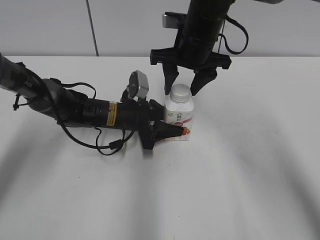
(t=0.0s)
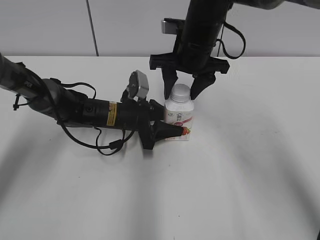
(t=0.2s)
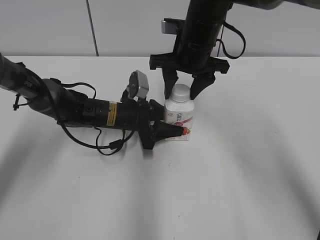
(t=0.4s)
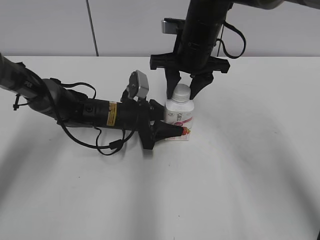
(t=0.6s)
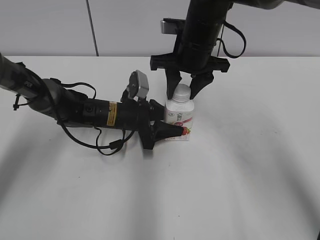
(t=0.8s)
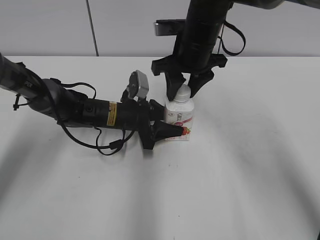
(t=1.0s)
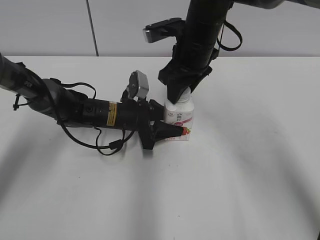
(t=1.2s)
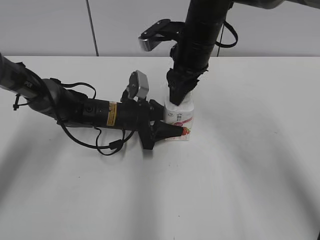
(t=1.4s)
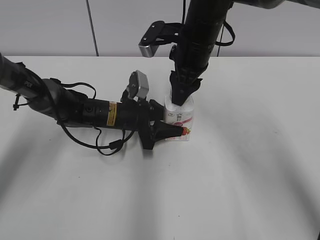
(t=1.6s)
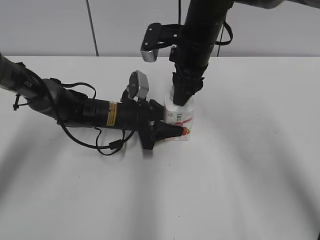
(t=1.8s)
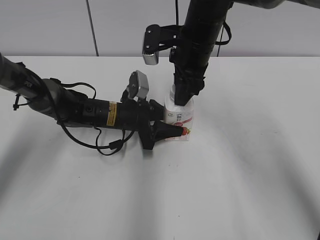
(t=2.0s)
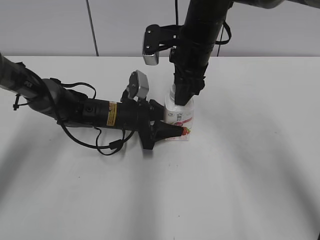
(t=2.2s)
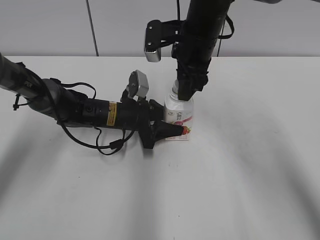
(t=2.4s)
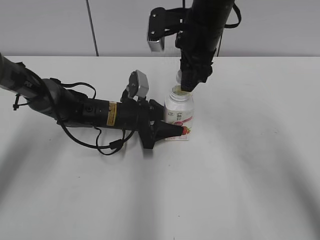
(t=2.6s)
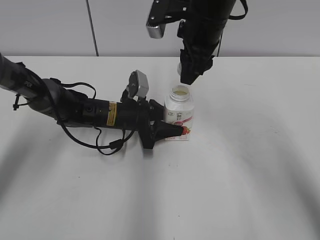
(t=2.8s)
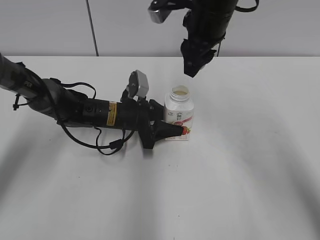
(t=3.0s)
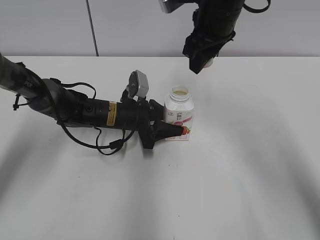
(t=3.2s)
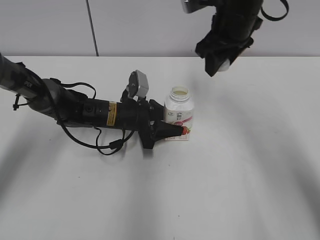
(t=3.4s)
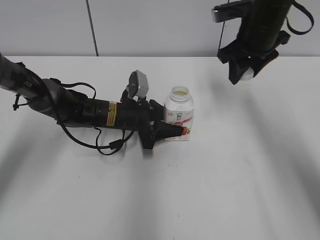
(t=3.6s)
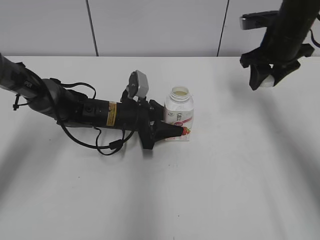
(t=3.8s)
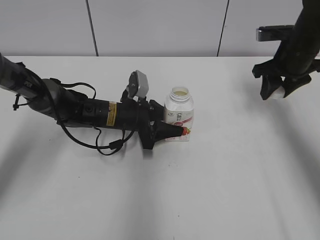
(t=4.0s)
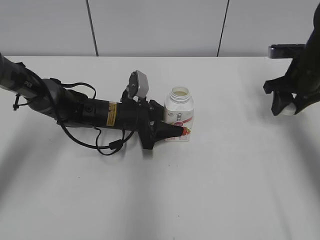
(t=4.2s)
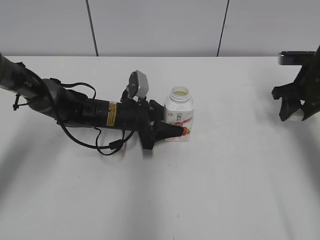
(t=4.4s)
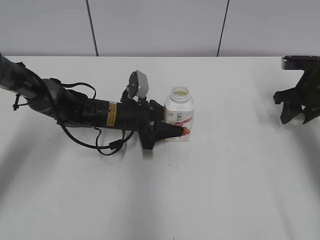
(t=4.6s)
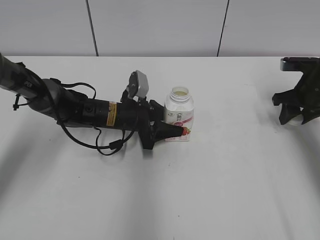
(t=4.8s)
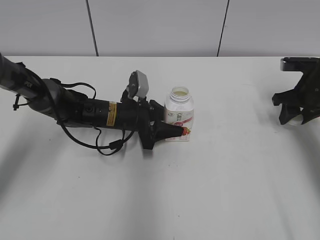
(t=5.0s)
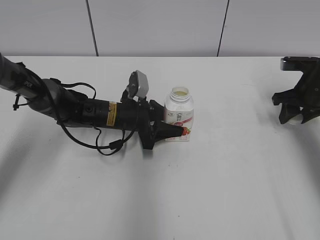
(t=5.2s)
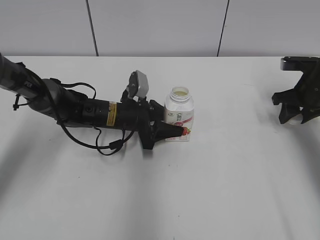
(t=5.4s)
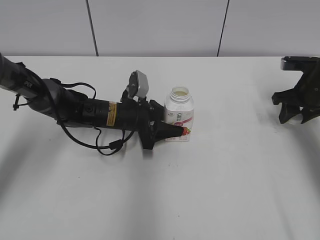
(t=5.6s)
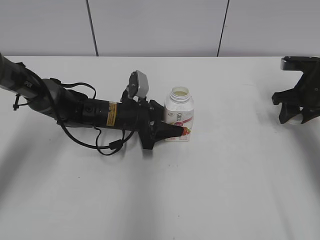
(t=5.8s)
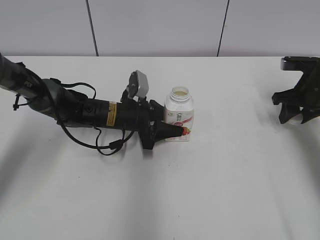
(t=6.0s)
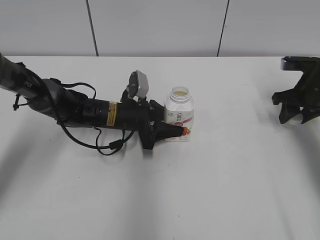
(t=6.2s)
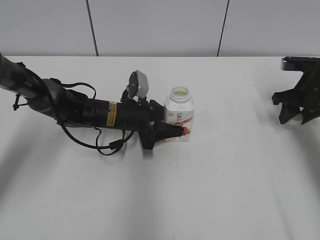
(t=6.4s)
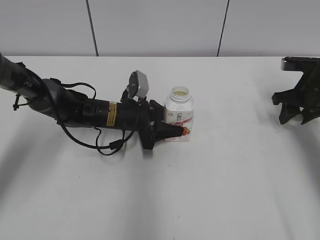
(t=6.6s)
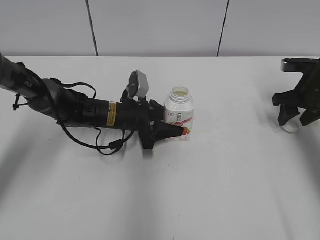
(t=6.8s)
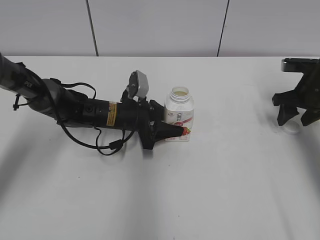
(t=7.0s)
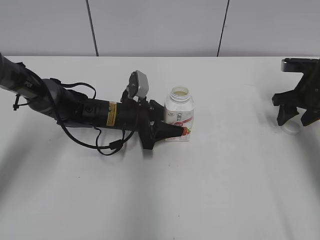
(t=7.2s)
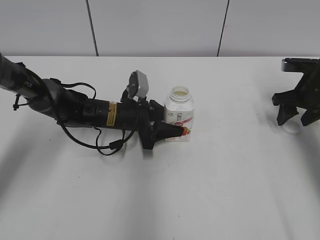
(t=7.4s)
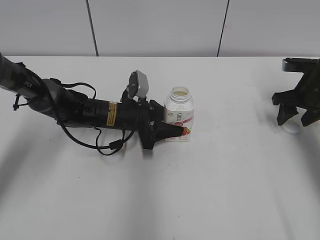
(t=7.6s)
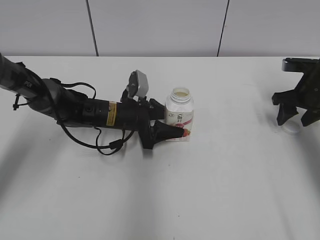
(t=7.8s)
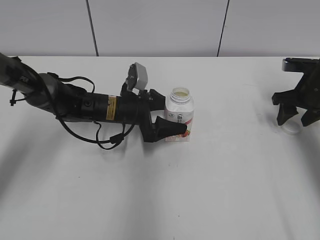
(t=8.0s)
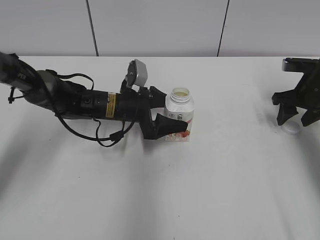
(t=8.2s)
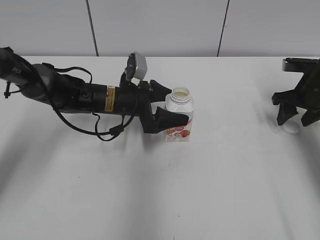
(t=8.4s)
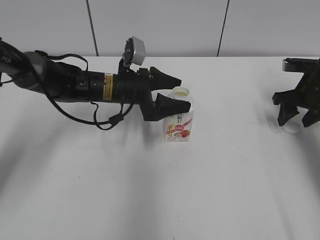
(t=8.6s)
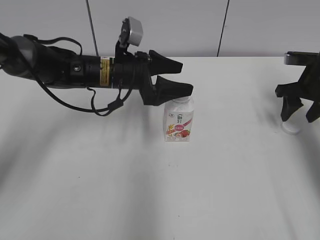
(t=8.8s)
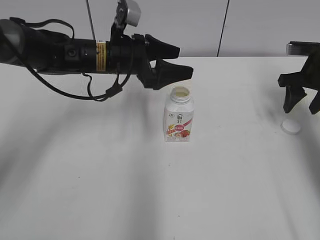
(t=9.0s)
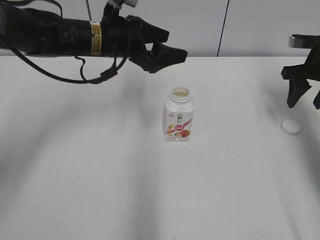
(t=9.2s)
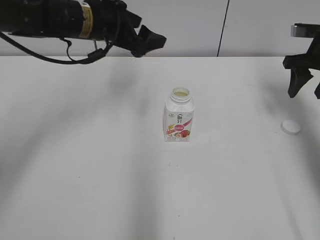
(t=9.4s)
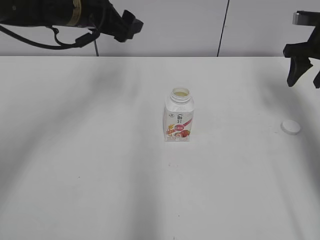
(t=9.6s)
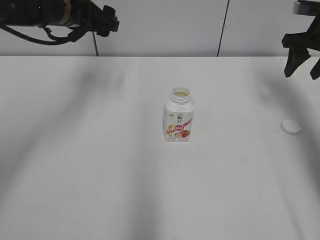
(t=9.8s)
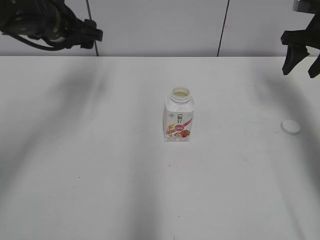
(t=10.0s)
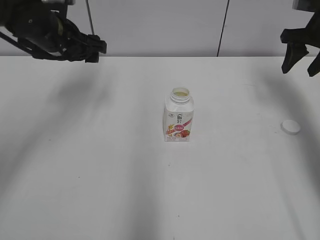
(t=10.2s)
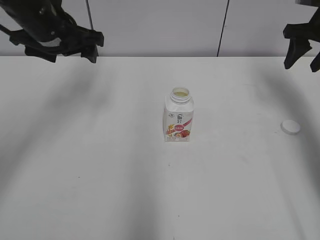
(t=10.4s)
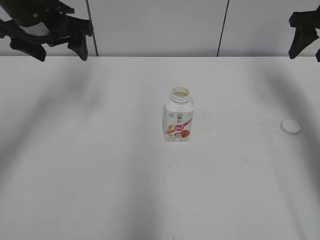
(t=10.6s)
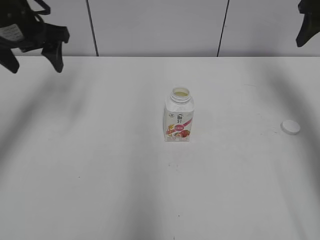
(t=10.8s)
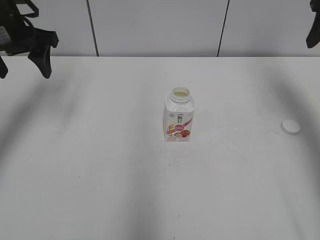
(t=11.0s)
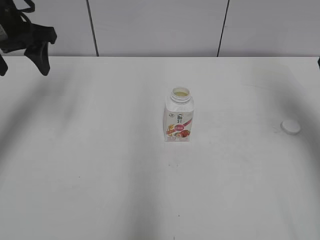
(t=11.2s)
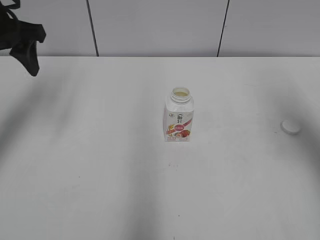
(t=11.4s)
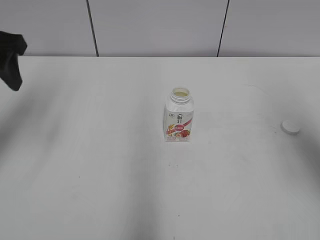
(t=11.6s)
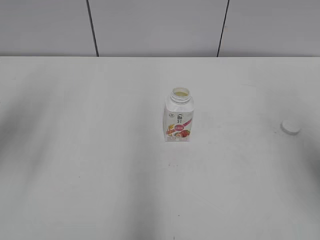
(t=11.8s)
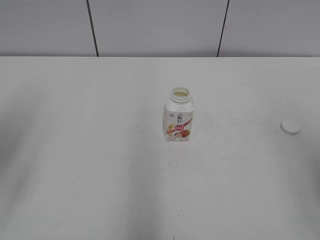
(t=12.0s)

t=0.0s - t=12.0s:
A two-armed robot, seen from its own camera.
Step, t=2.6s - t=6.8s: Place the bottle cap on the right.
t=0.0s - t=1.6s: The right gripper closes.
t=1.6s - t=3.0s: The right gripper moves upward, roughly 5 cm.
t=3.0s - t=4.4s: The right gripper moves to the right and downward, some 25 cm.
t=4.4s - t=6.0s: The grippers move only a little.
t=6.0s - t=7.6s: The right gripper opens up.
t=7.6s - t=9.0s: The left gripper shifts some 15 cm upward, and opens.
t=9.0s - t=10.4s: The right gripper moves upward, approximately 10 cm; the left gripper shifts approximately 15 cm to the left and upward.
t=10.4s - t=12.0s: The left gripper moves backward and to the left, approximately 25 cm. Meanwhile the right gripper goes roughly 30 cm backward.
